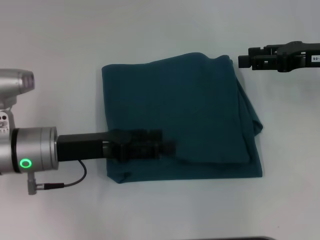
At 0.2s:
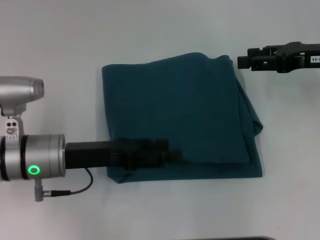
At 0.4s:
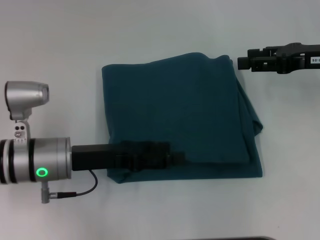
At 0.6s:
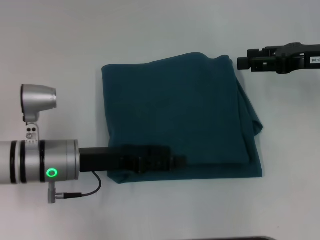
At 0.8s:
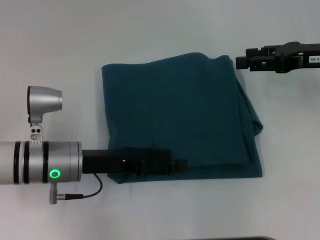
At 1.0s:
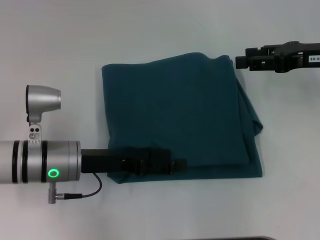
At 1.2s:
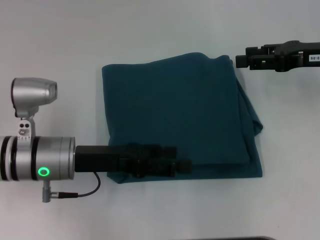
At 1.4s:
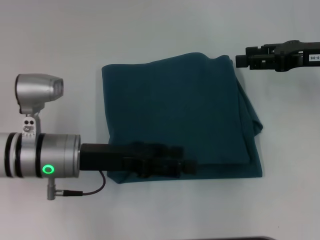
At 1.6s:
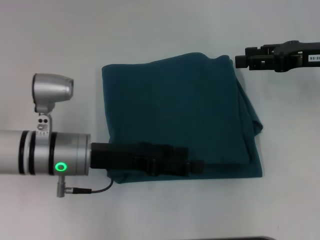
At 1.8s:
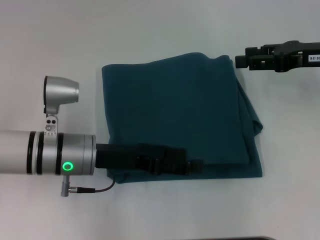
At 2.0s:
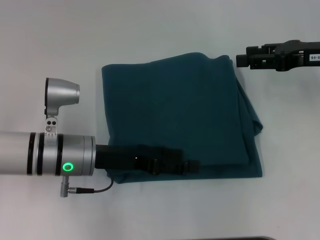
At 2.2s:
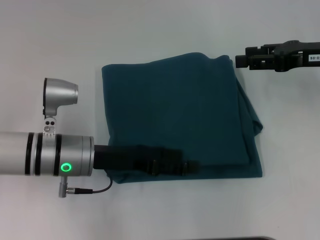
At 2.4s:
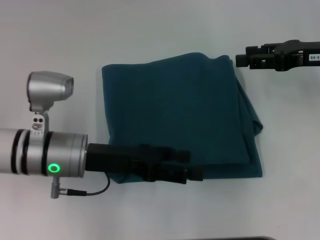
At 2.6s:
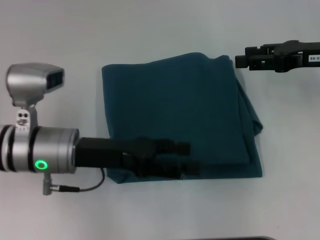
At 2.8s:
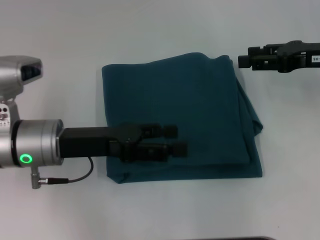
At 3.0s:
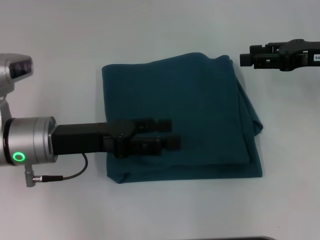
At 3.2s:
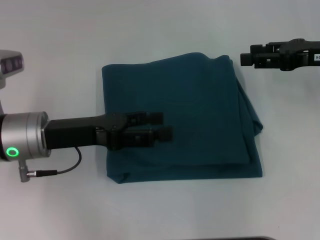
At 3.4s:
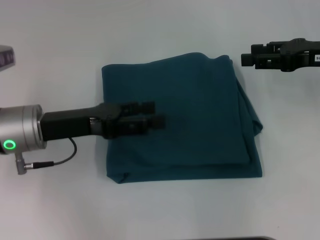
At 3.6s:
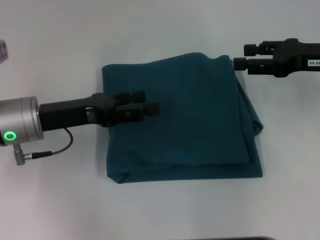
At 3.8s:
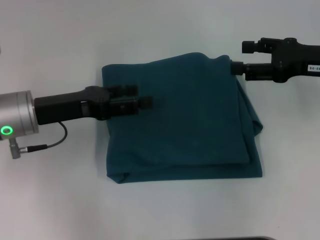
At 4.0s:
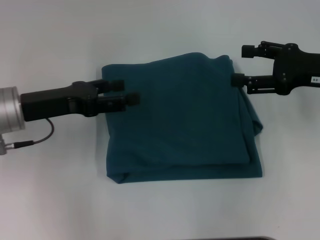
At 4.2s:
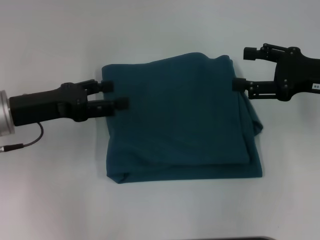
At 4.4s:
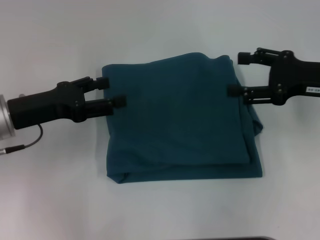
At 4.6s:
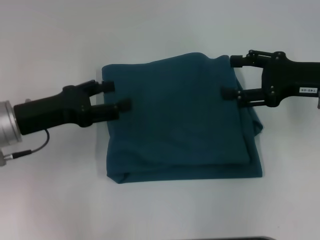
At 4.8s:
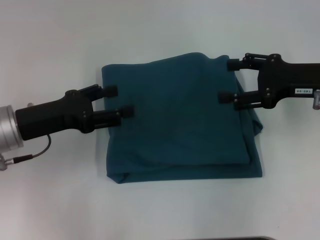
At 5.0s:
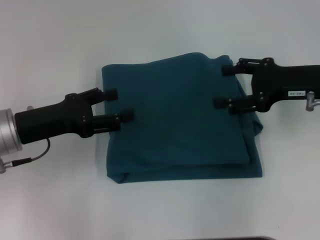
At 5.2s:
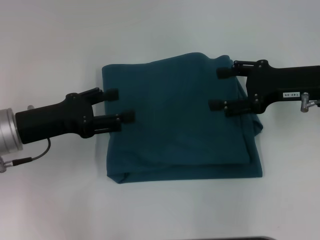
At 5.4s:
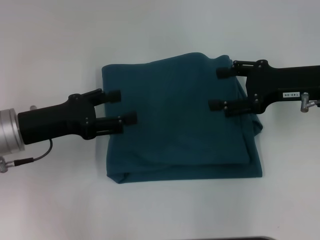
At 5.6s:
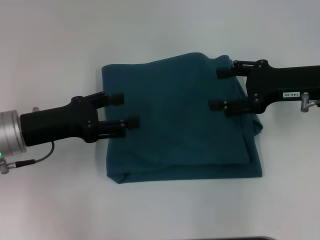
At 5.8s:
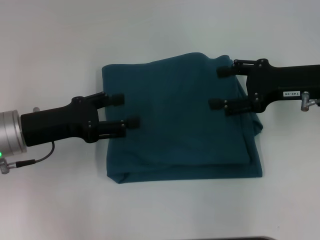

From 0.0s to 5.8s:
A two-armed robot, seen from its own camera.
From 0.0s to 2.8s: The grippers move only a little.
From 2.8s to 4.4s: The left gripper heads to the left, covering roughly 5 cm.
From 4.4s to 5.8s: There are only small adjustments of the grippers.

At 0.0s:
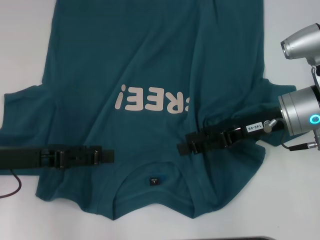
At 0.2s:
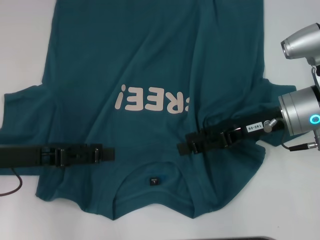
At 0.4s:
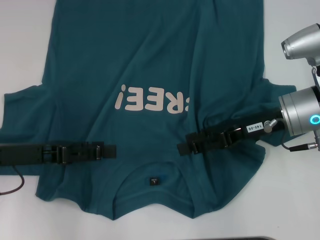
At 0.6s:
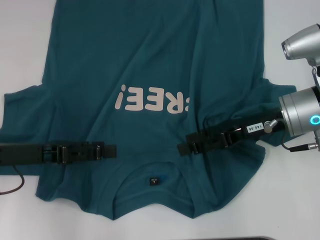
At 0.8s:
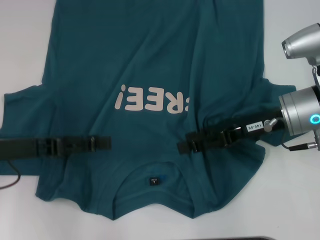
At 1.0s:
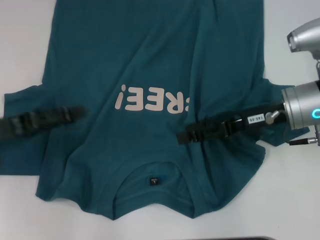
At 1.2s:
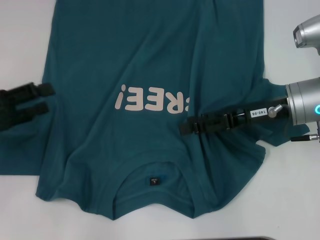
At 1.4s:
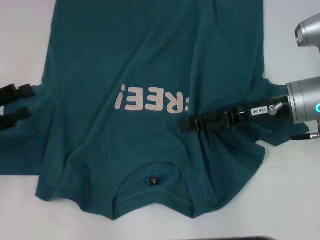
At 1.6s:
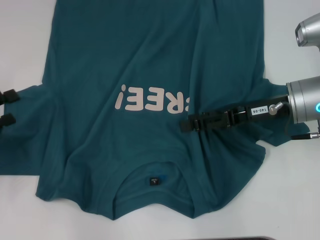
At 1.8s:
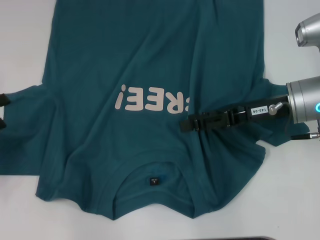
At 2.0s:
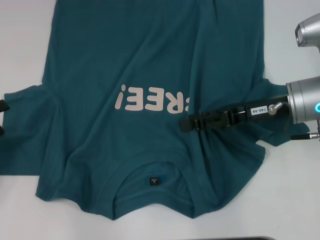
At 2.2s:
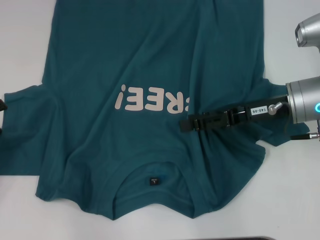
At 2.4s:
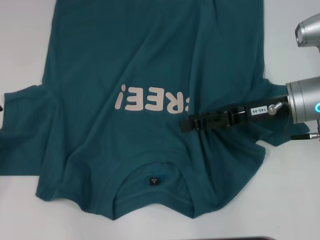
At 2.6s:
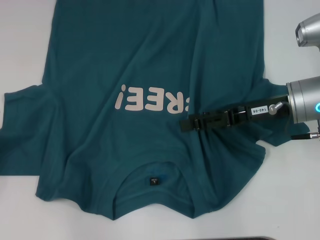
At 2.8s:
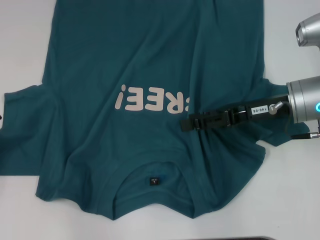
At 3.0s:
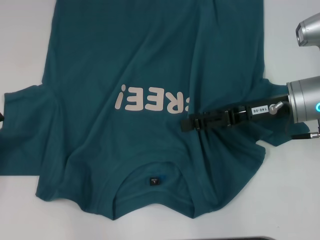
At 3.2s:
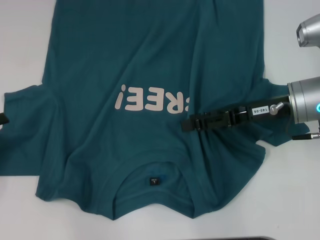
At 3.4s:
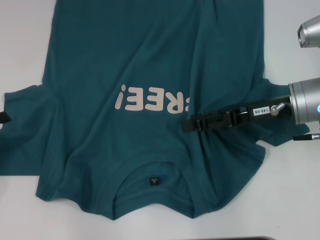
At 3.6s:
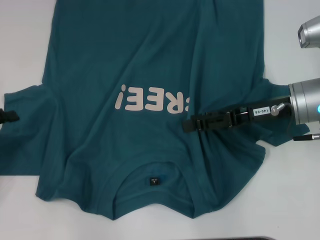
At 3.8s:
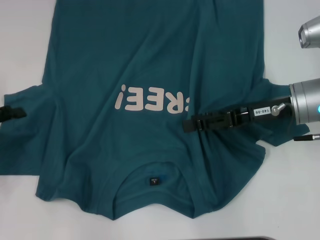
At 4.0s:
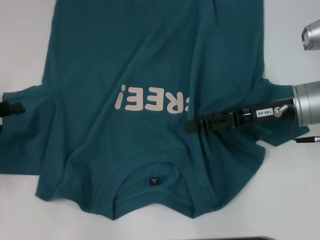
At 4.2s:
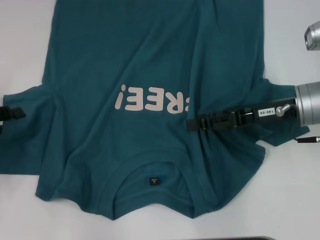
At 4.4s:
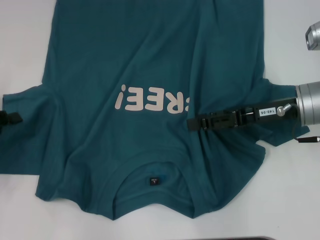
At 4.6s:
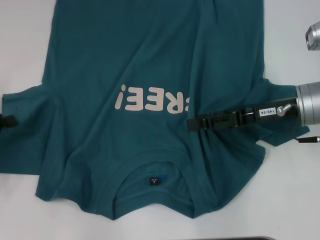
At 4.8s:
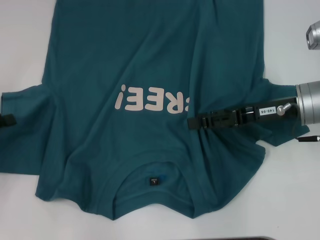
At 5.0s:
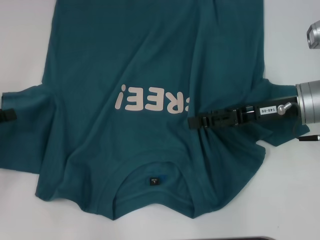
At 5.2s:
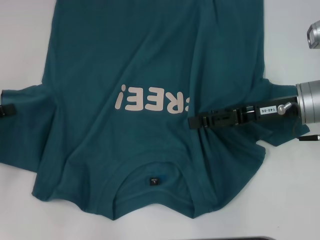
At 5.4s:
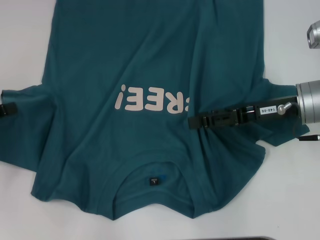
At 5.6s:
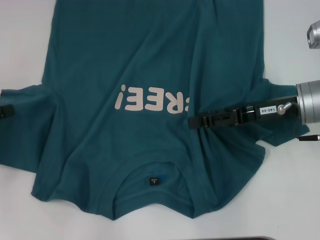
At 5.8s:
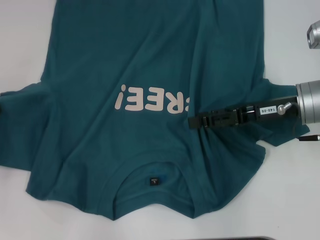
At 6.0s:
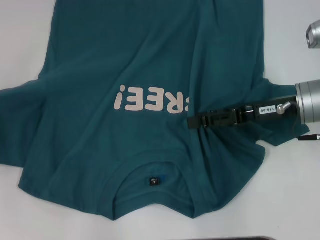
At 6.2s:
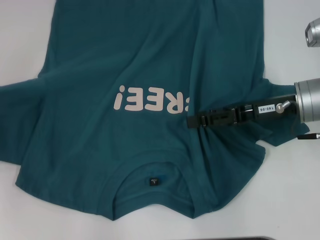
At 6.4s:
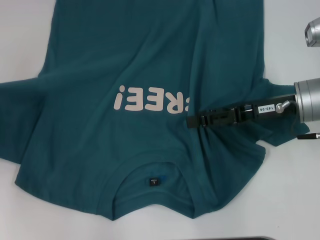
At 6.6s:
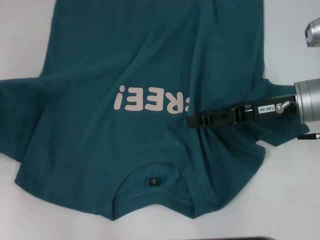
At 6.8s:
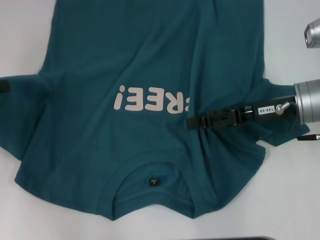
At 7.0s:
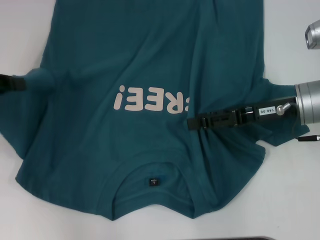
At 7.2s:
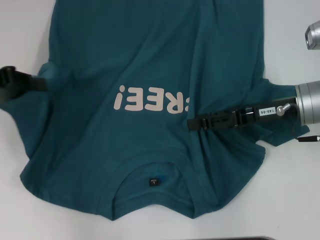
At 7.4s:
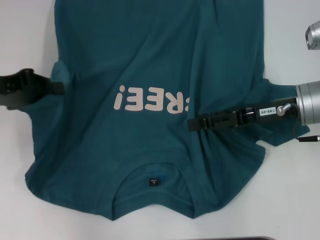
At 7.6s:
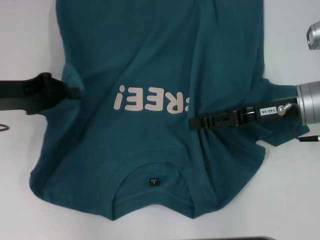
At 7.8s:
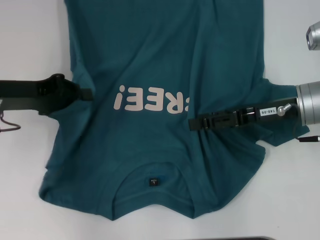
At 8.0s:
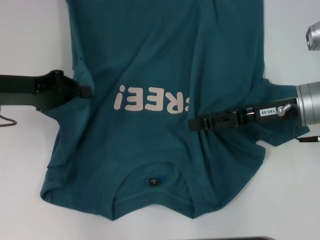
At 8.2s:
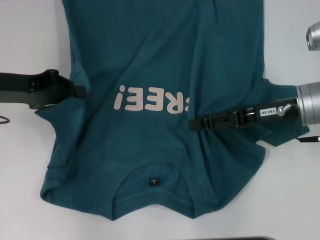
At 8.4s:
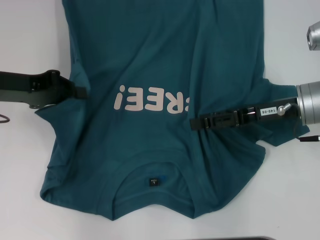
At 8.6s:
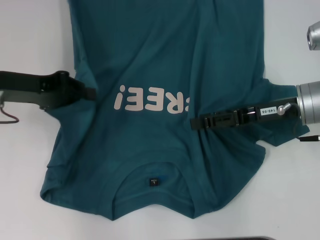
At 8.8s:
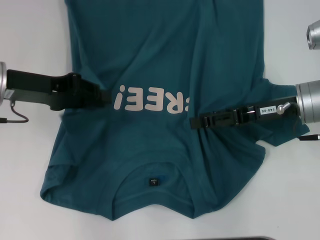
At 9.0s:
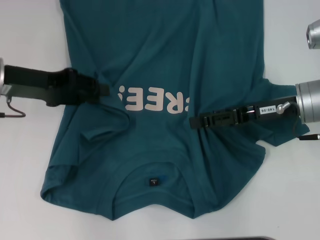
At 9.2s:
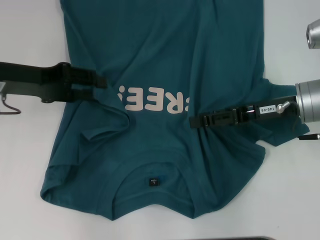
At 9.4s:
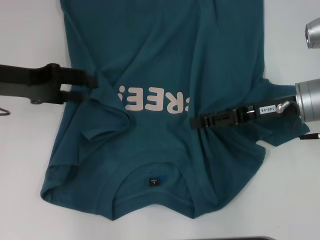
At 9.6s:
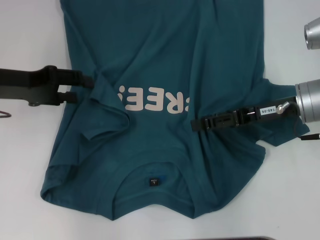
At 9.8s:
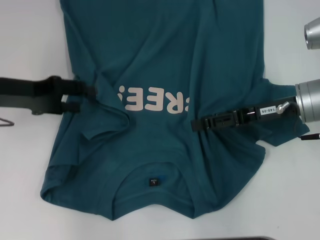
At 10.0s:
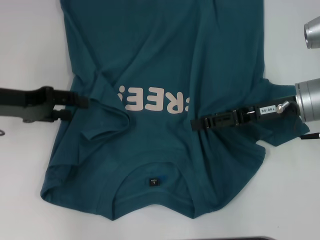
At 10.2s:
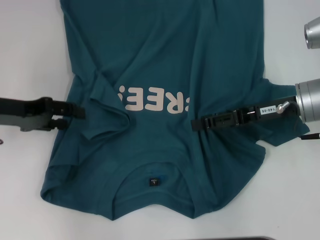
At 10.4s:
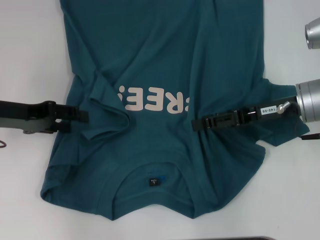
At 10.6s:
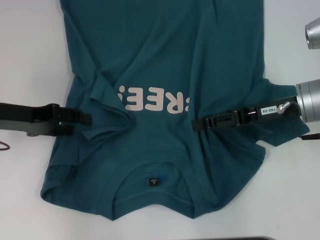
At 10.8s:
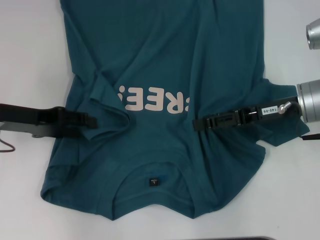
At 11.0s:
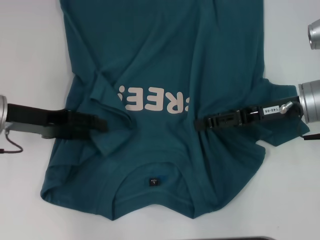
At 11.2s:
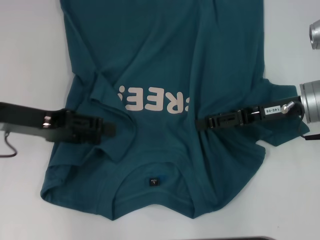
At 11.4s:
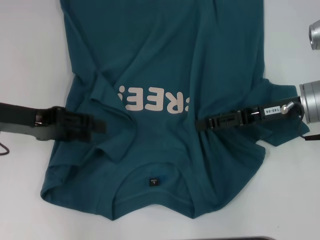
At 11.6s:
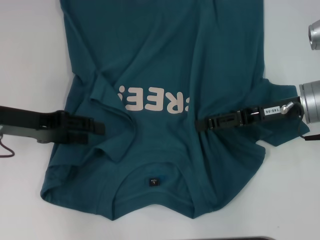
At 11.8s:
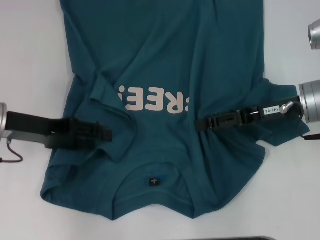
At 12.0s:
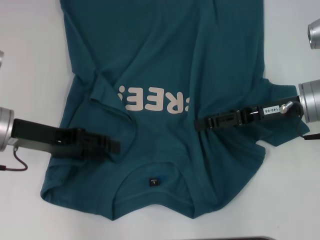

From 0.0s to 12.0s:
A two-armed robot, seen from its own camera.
From 0.0s to 1.6s: The left gripper travels to the left by roughly 10 cm.
From 3.0s to 4.4s: The left gripper closes its fingers.
From 4.4s to 6.0s: The left gripper closes.
From 6.0s to 7.6s: The left gripper shifts about 10 cm to the right.
From 7.6s to 9.0s: The grippers stay close to where they were, moving slightly.
From 9.0s to 10.4s: The left gripper changes place by some 5 cm, and opens.
From 10.4s to 12.0s: There are only small adjustments of the grippers.

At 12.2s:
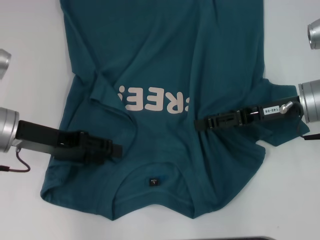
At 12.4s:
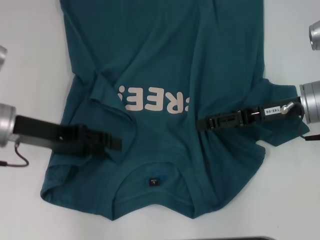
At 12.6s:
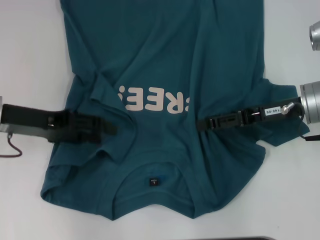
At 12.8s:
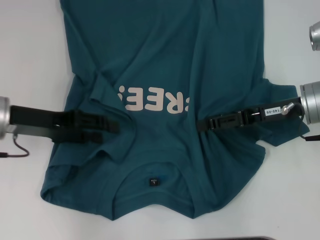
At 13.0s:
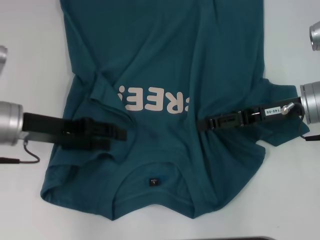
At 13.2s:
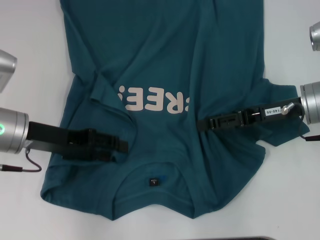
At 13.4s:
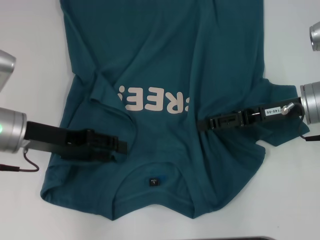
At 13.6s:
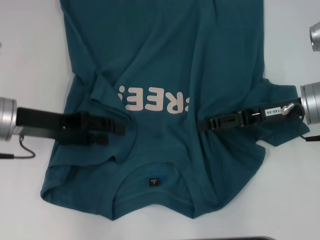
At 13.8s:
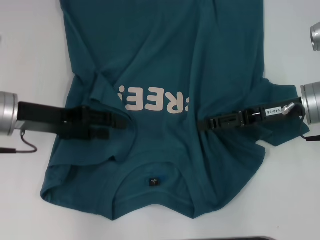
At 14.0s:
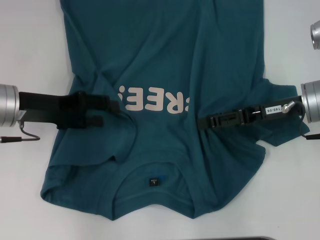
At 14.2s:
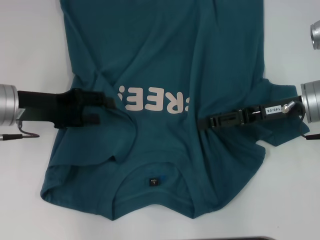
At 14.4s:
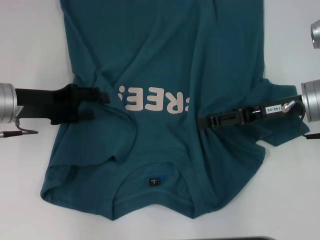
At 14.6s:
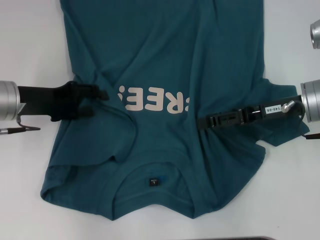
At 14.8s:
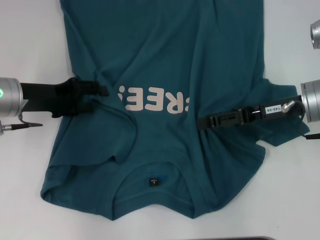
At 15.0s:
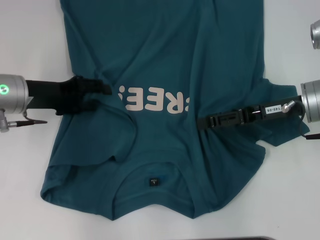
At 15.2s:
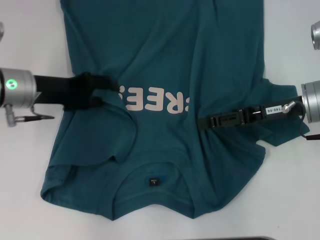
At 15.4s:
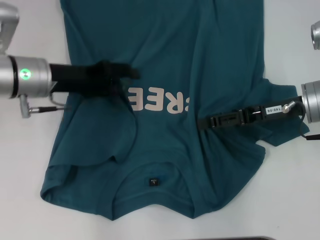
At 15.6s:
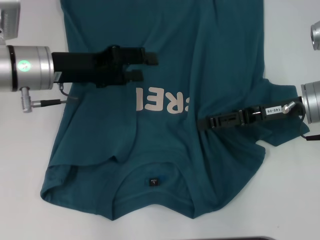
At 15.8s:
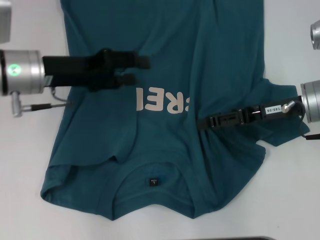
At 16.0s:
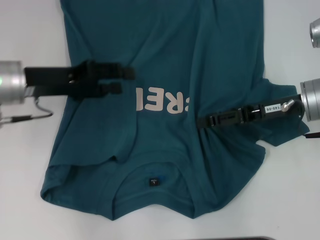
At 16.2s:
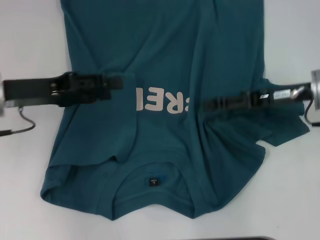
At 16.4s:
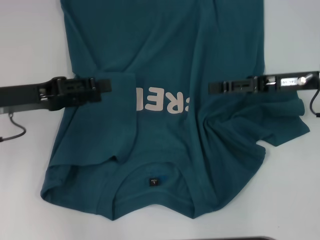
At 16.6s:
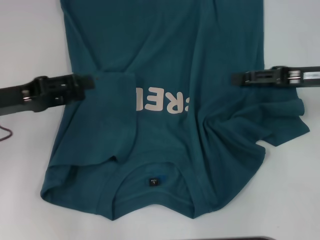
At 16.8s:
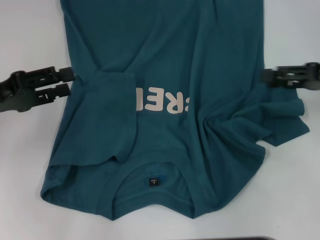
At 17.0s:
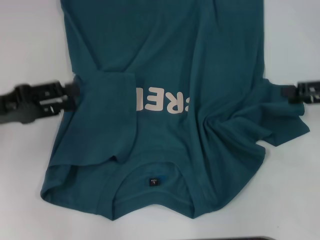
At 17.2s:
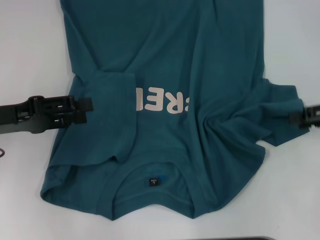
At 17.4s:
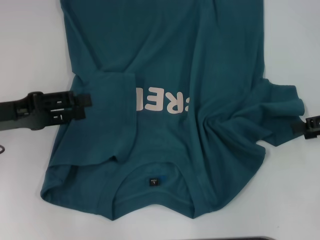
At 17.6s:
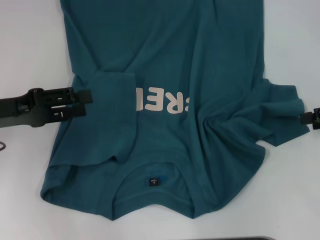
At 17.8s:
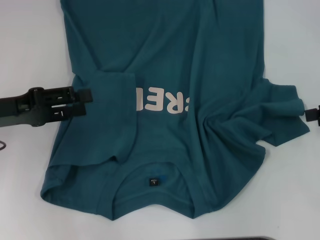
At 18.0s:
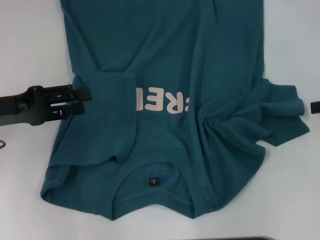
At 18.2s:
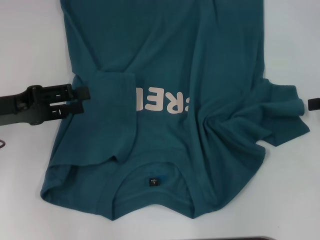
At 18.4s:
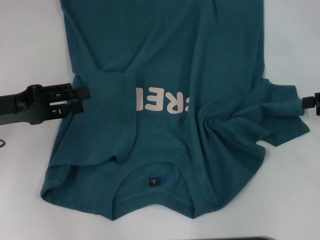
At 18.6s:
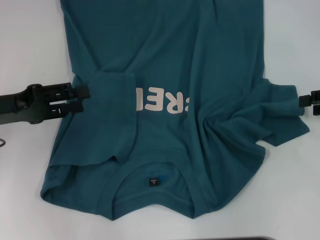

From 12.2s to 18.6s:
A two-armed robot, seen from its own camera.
Step, from 12.2s to 16.0s: Fold the bottom left sleeve with your left hand.
From 12.2s to 13.8s: The grippers make only small movements.
From 13.8s to 15.4s: The left gripper moves roughly 5 cm.
From 15.4s to 17.0s: The right gripper heads to the right, covering about 10 cm; the left gripper goes about 15 cm to the left and backward.
From 17.0s to 18.6s: There are only small adjustments of the grippers.
